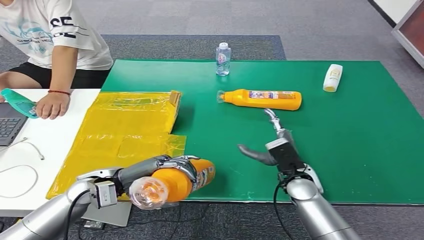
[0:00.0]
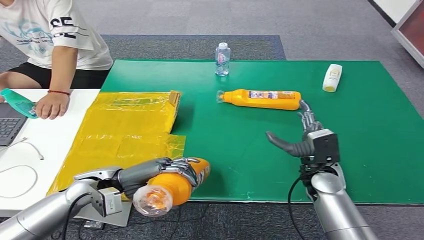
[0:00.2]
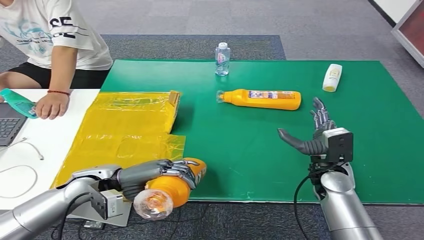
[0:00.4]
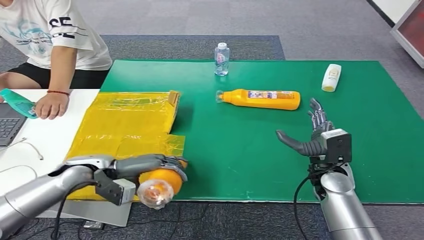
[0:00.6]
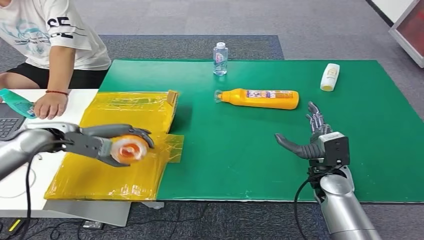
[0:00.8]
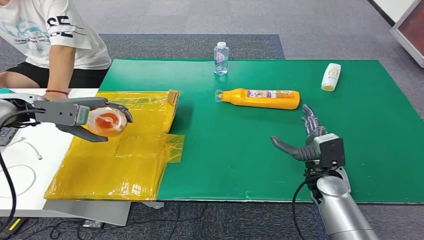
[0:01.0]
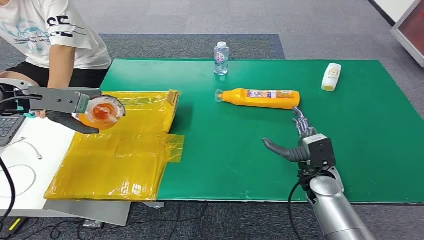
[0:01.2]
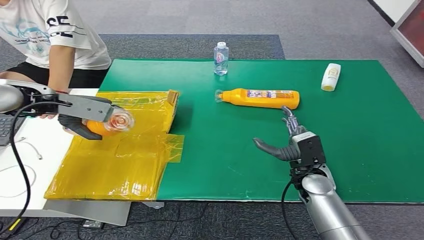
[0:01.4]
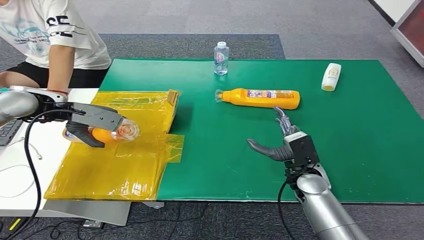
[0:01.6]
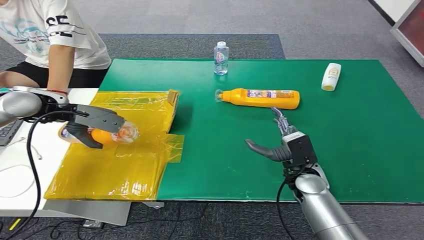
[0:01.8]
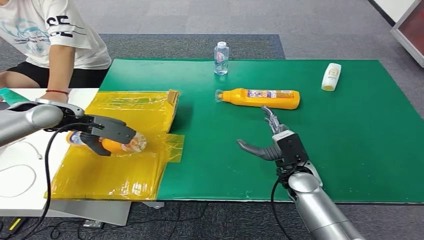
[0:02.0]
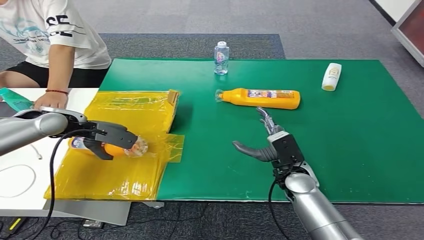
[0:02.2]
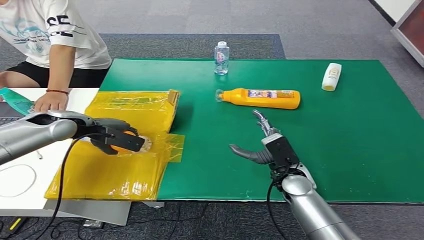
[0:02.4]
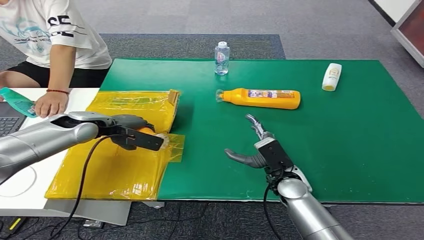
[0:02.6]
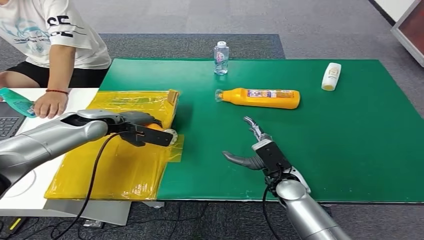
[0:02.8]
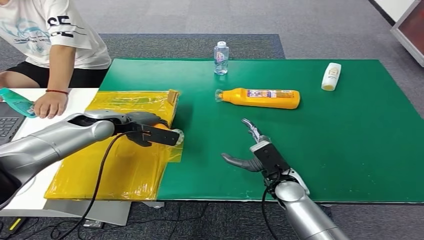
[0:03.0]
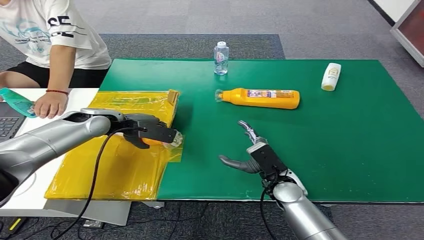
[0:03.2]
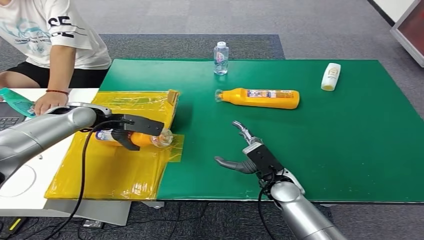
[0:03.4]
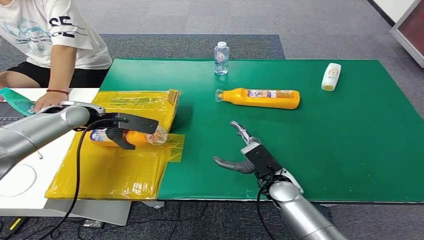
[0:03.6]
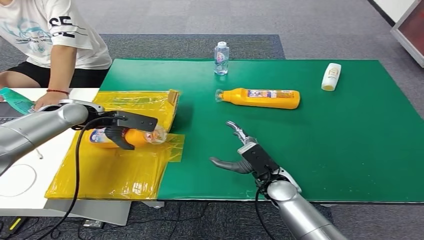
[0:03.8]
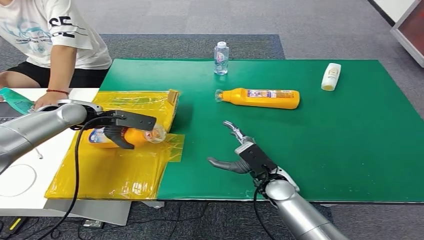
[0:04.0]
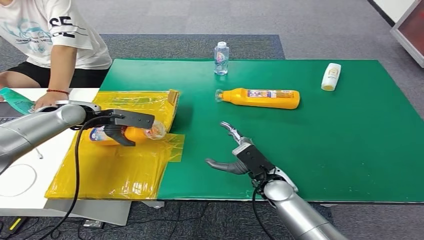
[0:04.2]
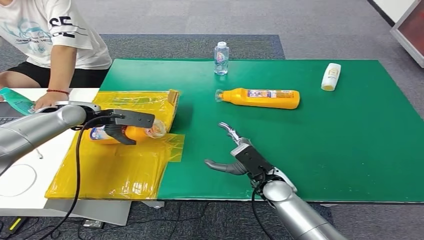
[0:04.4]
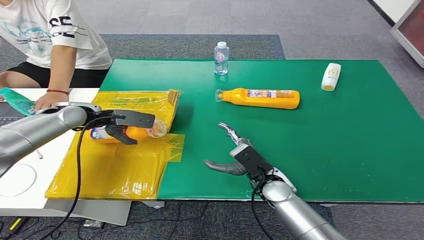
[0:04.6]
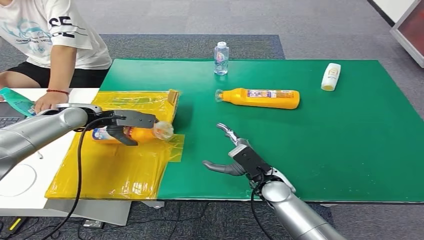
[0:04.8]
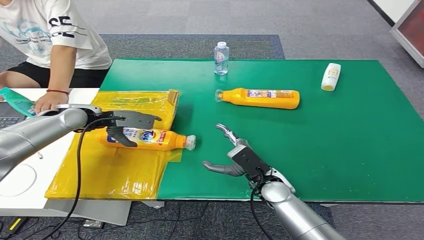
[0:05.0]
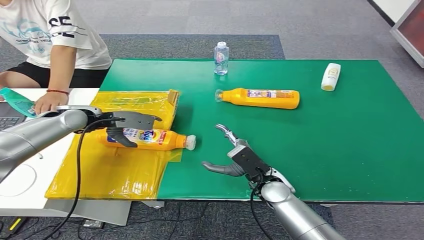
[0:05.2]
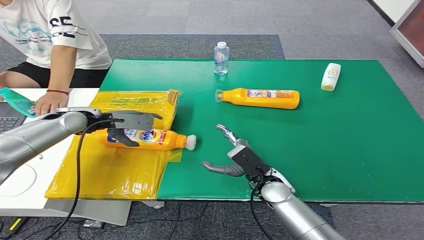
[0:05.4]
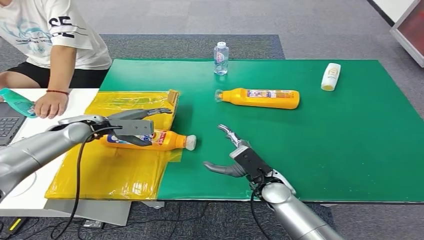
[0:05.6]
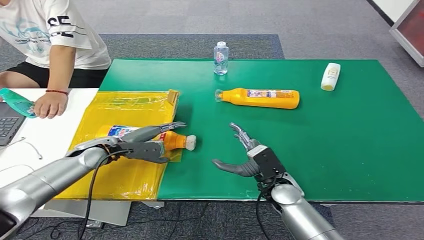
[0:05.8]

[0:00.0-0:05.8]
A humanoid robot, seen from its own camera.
Step, 0:00.0 to 0:05.8: Turn the bottle to the front side.
0:02.8 to 0:04.4: The left hand shifts by roughly 5 cm.
0:04.4 to 0:05.8: The left hand heads downward and backward, covering approximately 10 cm.
